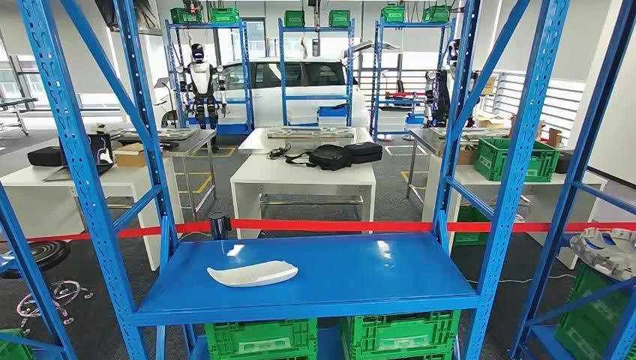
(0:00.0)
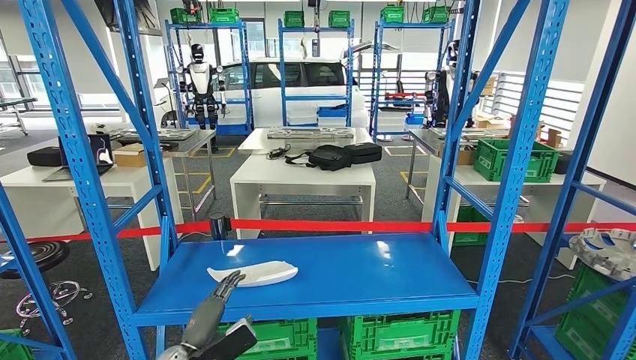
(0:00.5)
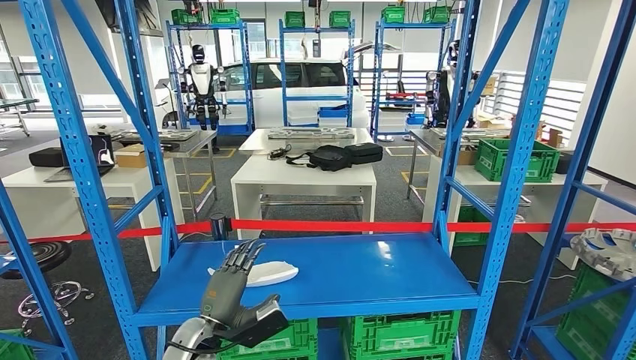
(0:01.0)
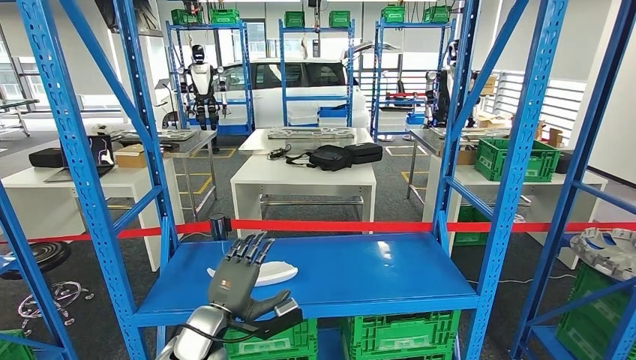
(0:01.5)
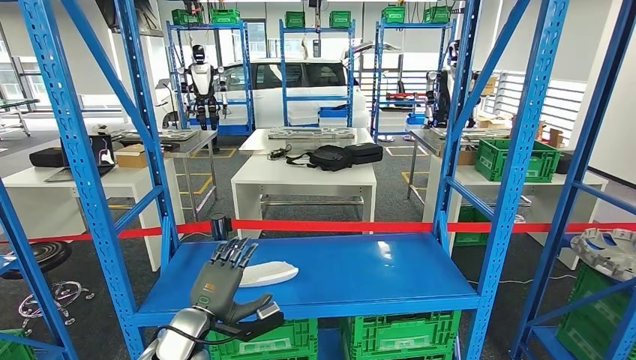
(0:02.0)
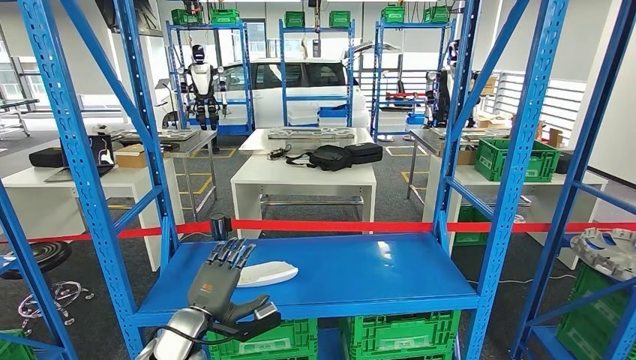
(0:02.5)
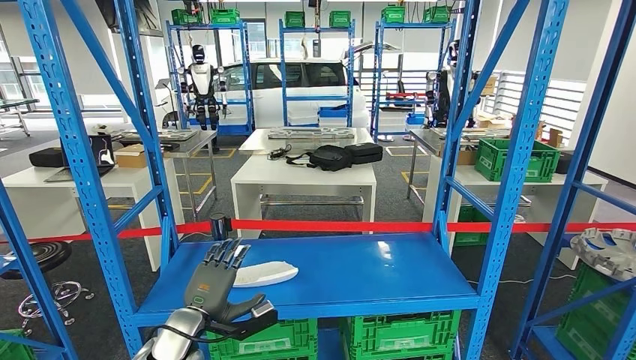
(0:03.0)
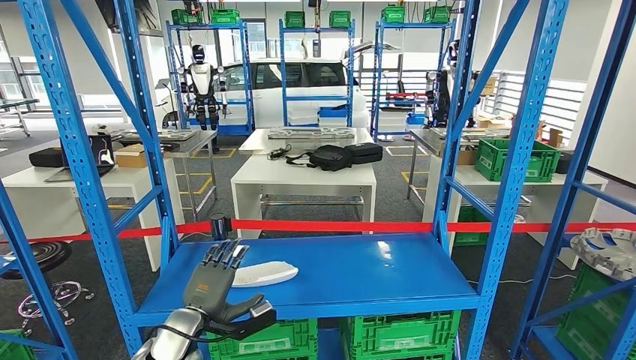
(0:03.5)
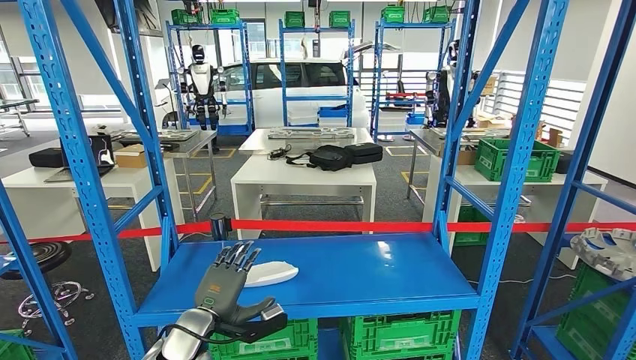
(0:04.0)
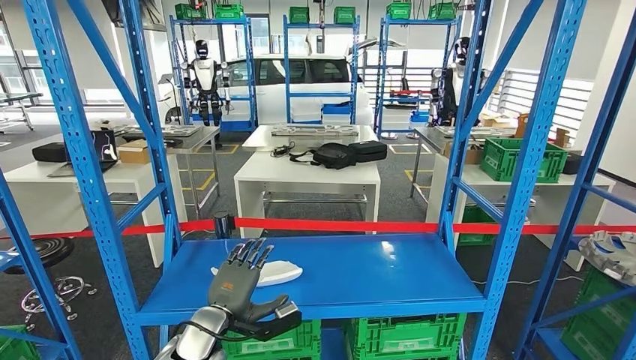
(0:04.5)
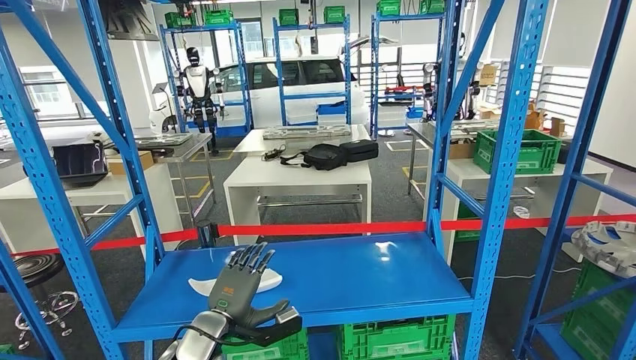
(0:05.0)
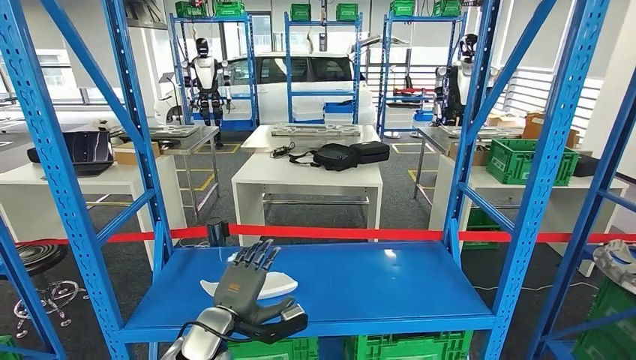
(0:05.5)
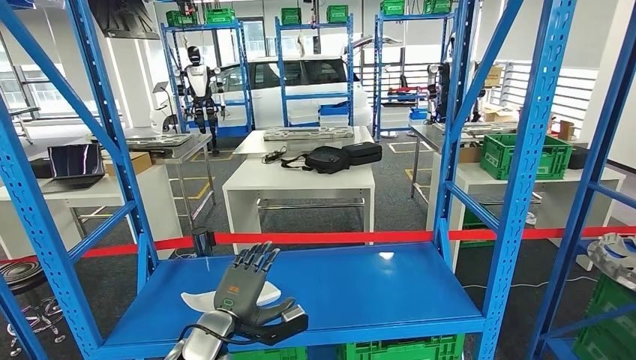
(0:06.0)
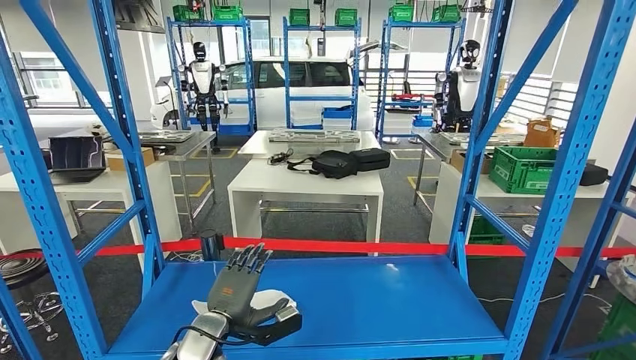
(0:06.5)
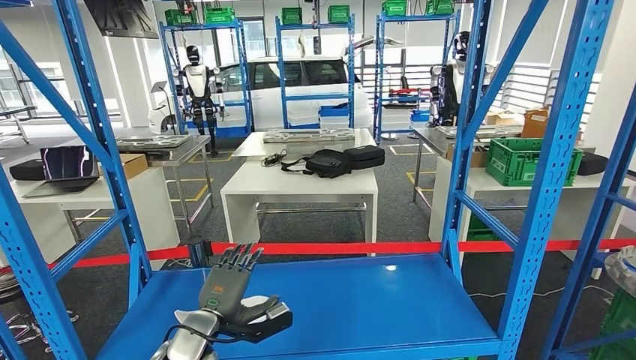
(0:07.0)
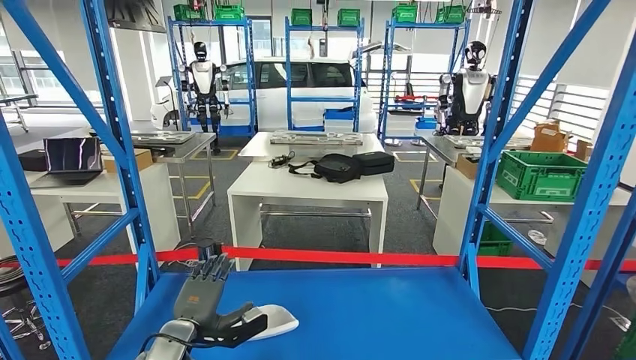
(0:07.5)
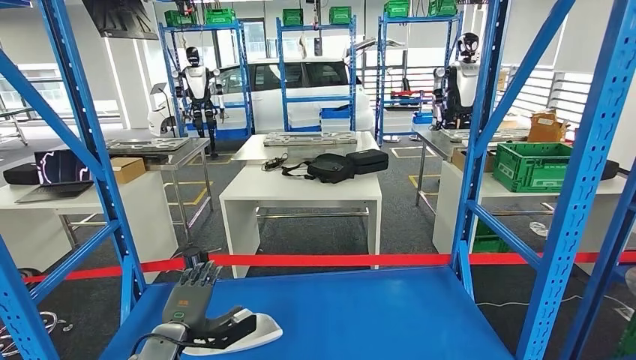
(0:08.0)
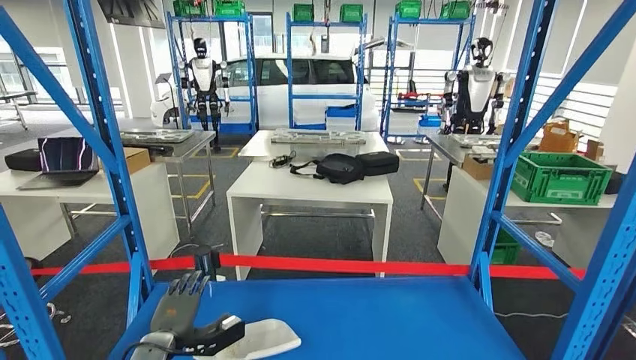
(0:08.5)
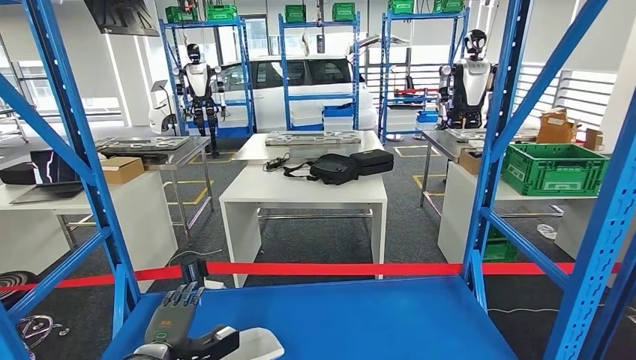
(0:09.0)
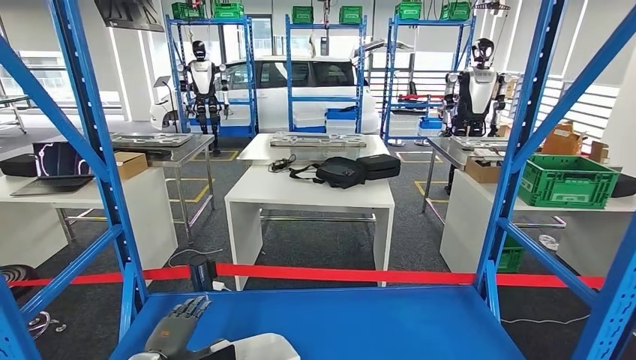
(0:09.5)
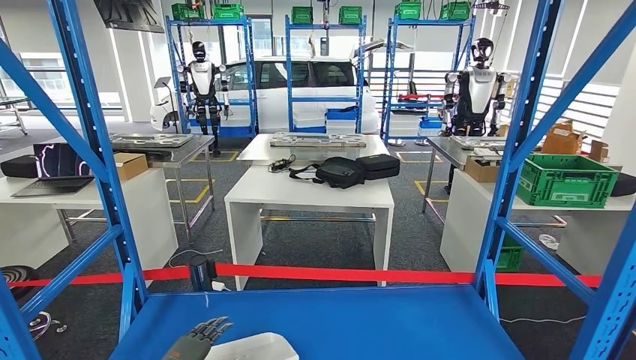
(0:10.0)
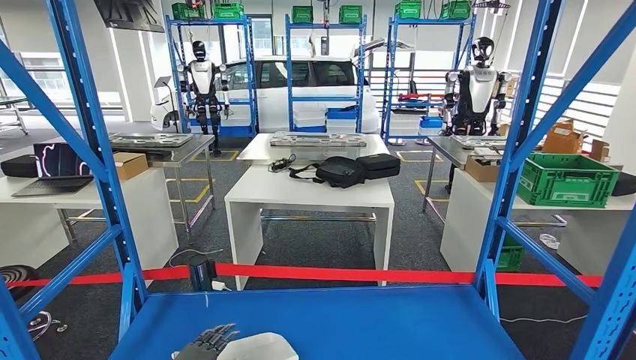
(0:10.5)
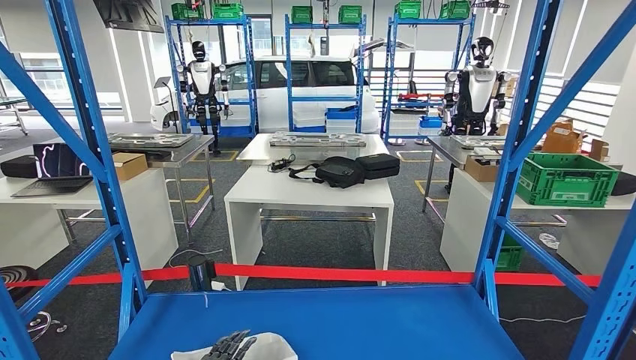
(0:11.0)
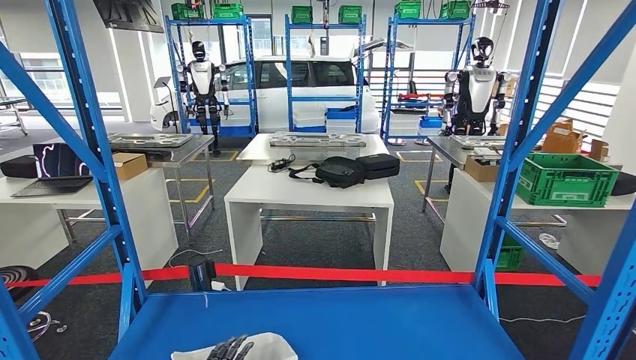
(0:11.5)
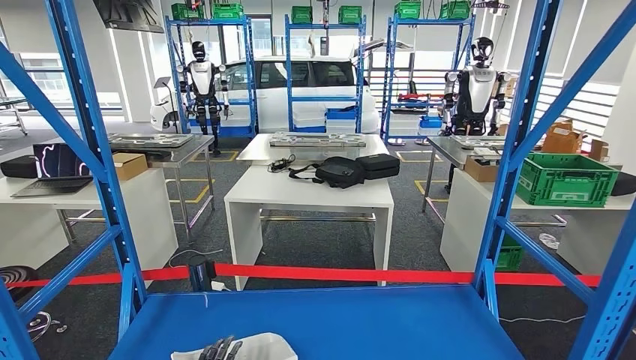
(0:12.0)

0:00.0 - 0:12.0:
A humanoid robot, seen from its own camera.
0:02.0 - 0:04.0: There are only small adjustments of the hands.
0:10.0 - 0:12.0: The left hand travels to the right by approximately 10 cm.

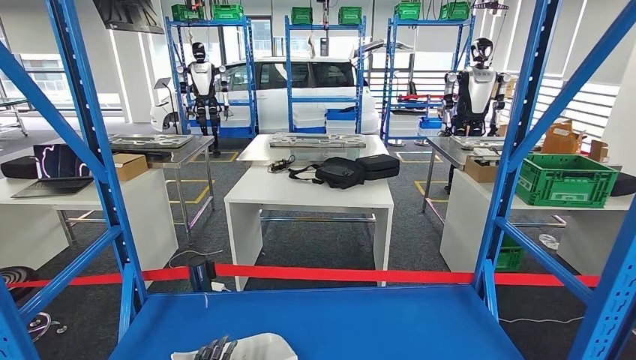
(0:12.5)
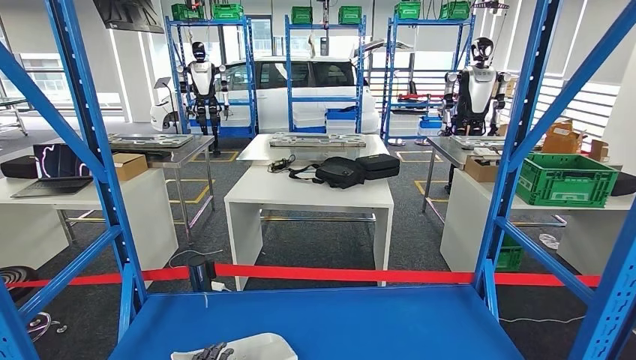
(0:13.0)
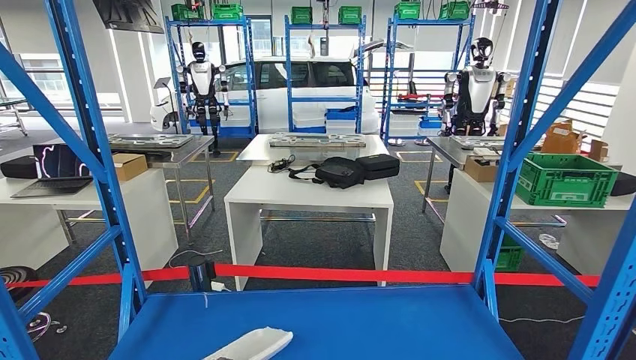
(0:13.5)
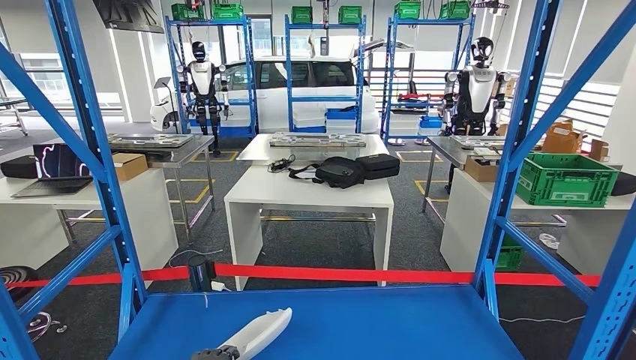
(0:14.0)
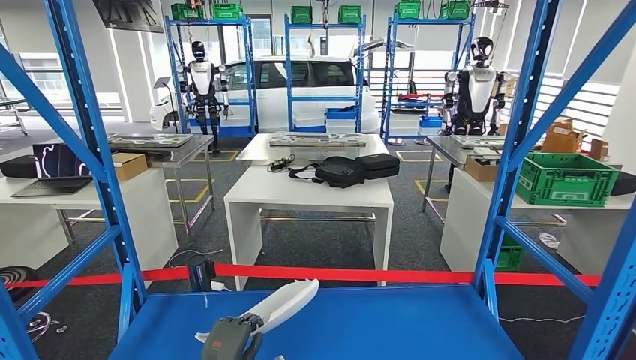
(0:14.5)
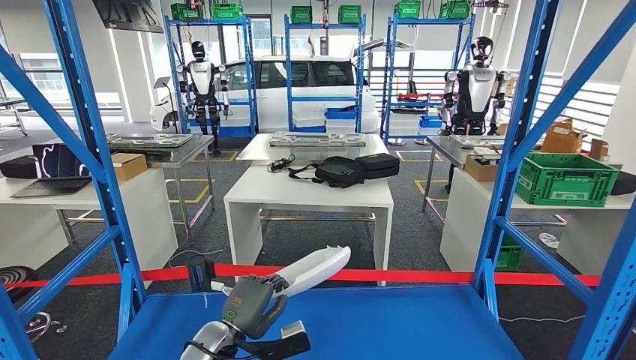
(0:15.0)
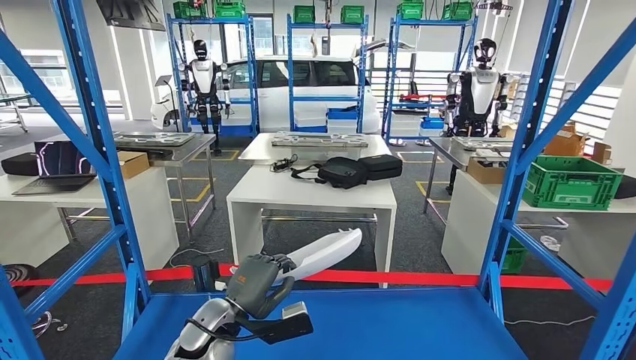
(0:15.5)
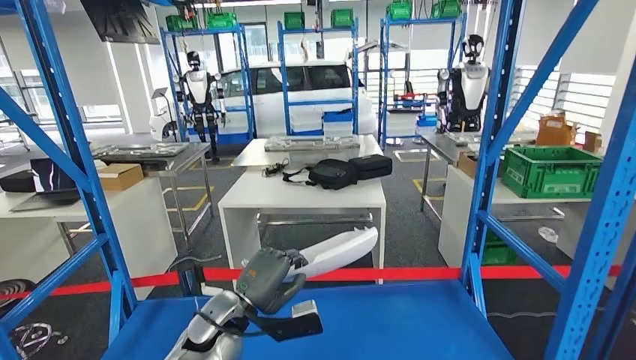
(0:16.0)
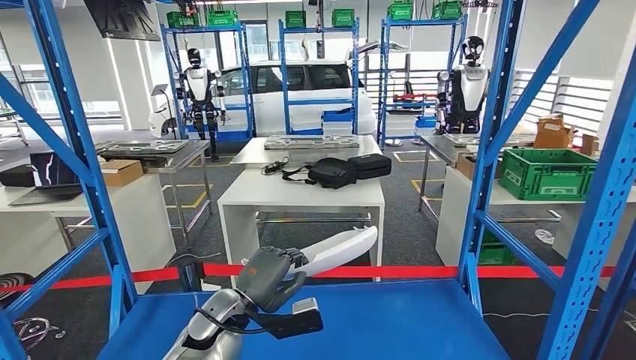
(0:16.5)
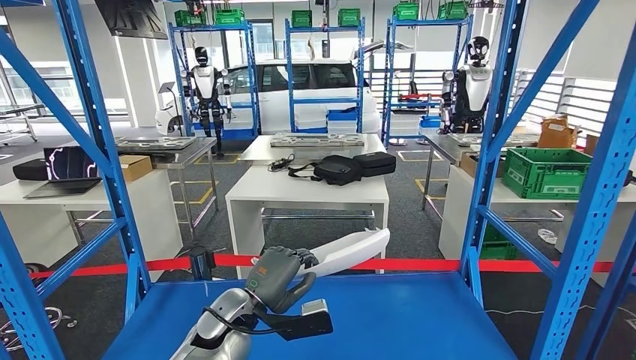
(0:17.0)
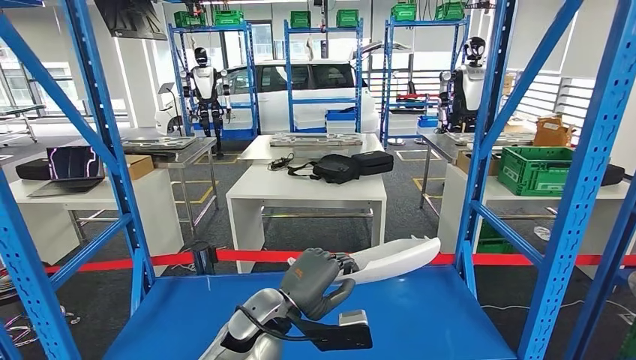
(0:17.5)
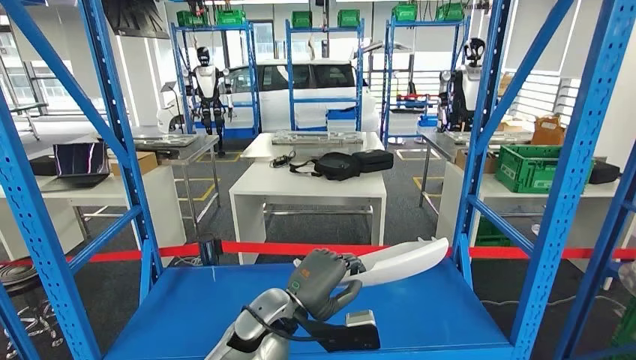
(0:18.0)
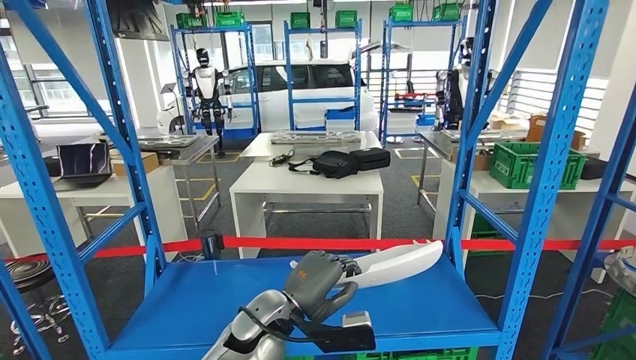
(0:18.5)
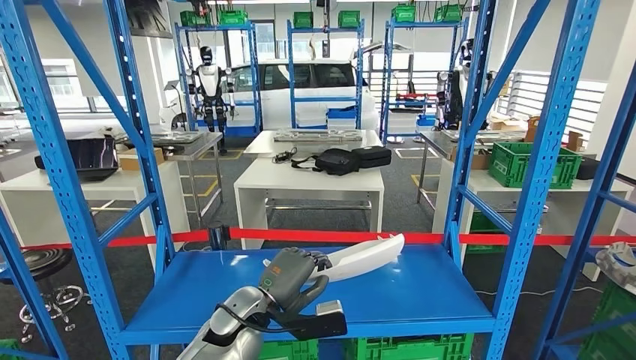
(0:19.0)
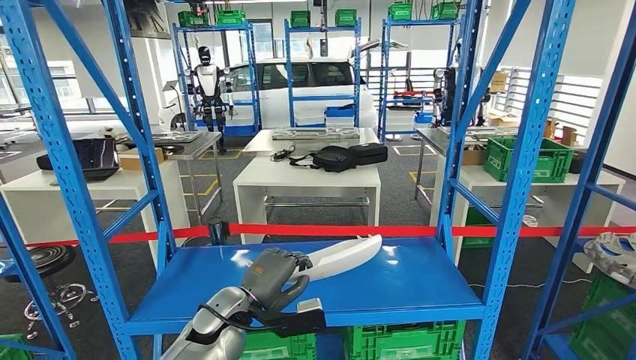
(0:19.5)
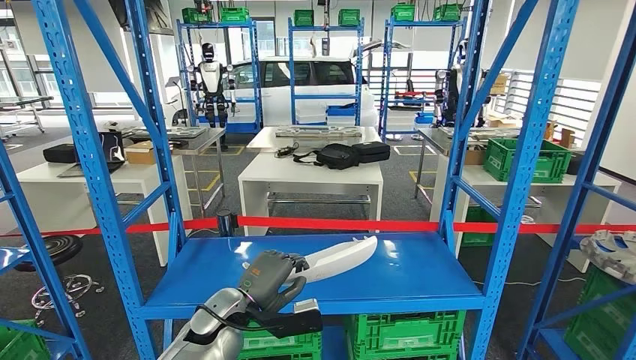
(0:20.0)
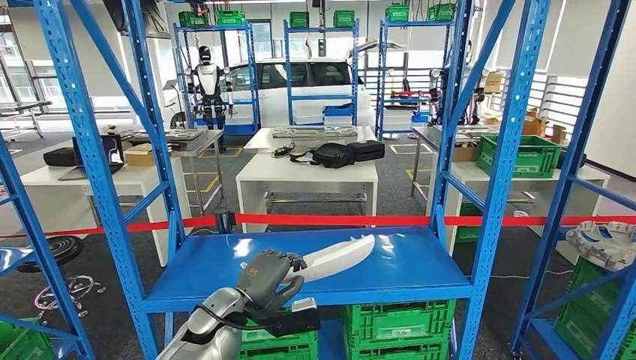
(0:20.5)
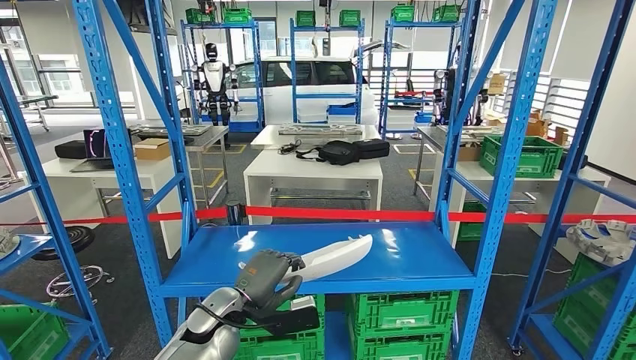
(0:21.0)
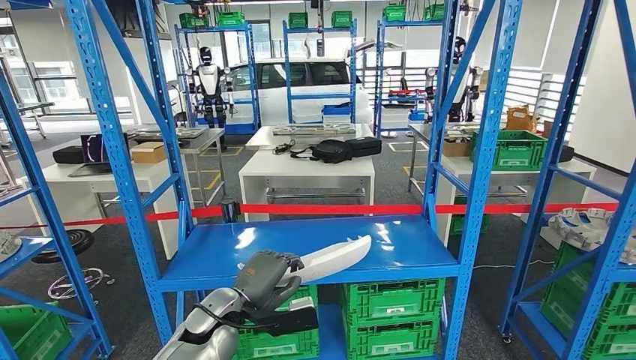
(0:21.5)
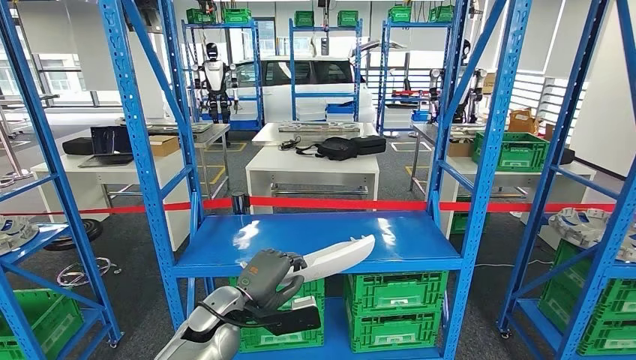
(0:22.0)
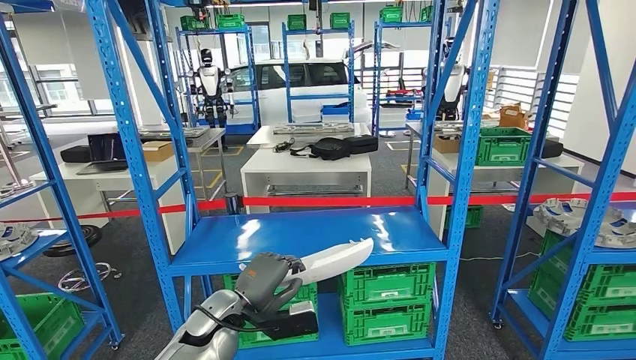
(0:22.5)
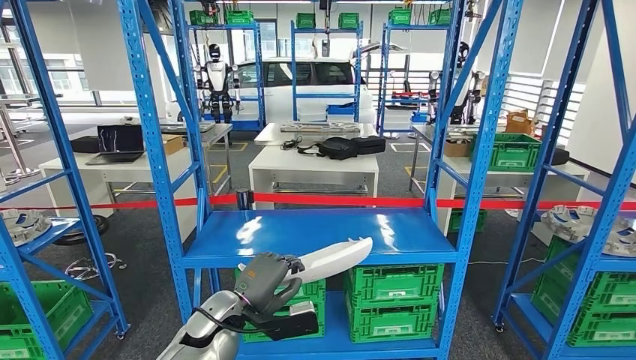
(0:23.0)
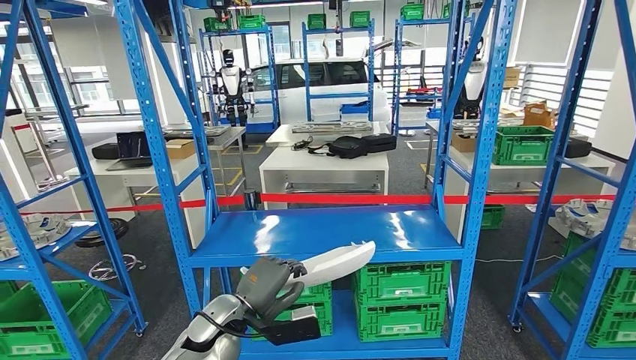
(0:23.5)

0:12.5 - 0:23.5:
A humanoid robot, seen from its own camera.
Step, 0:12.5 - 0:16.0: Pick up the small parts from the shelf.
0:12.5 - 0:14.5: The left hand travels upward by roughly 5 cm.
